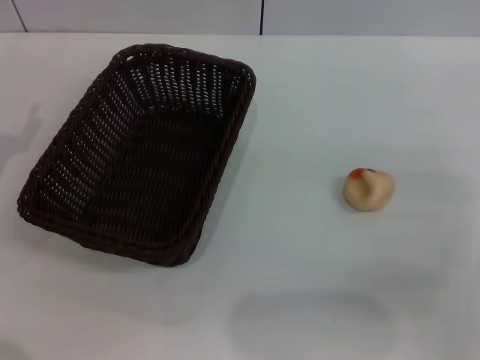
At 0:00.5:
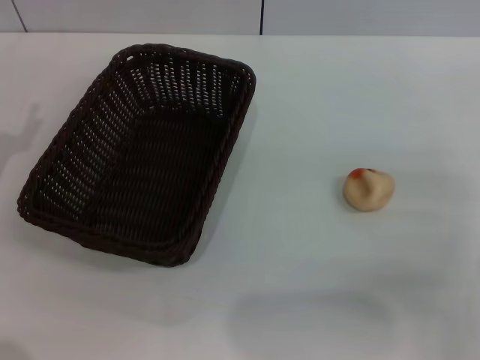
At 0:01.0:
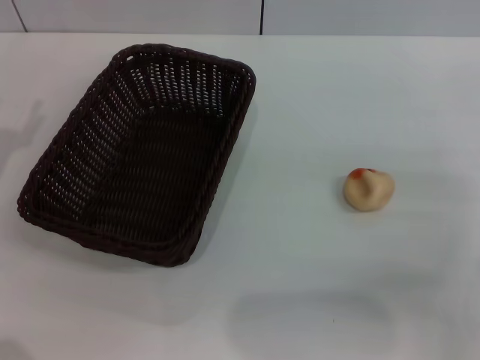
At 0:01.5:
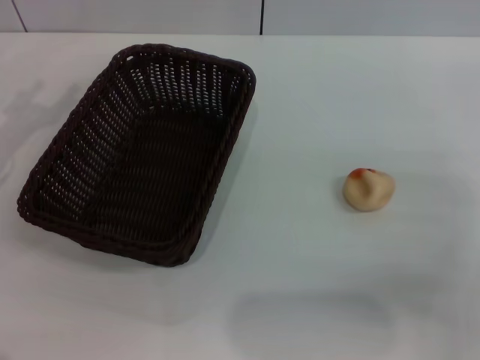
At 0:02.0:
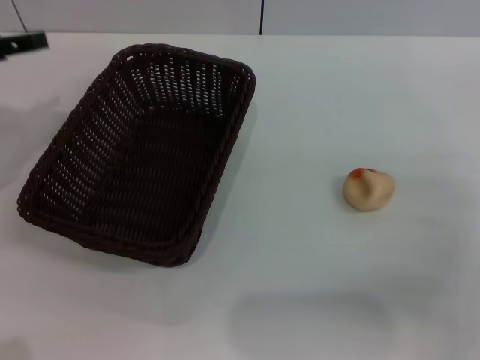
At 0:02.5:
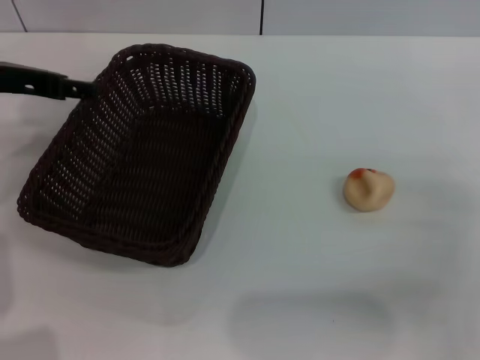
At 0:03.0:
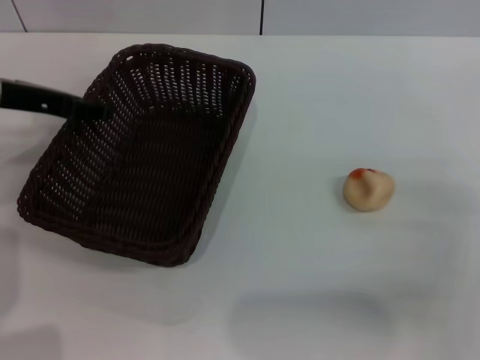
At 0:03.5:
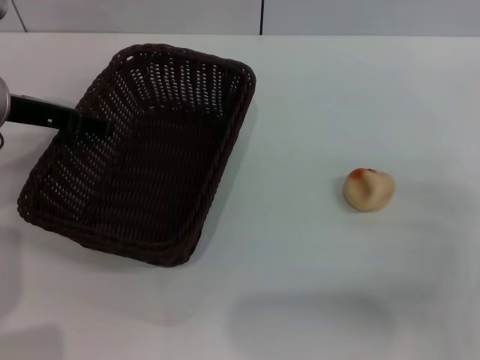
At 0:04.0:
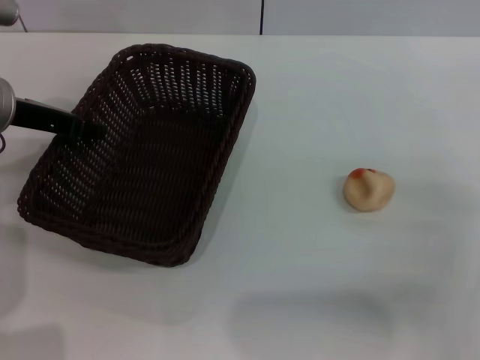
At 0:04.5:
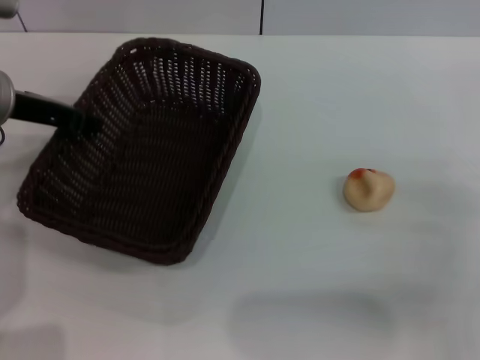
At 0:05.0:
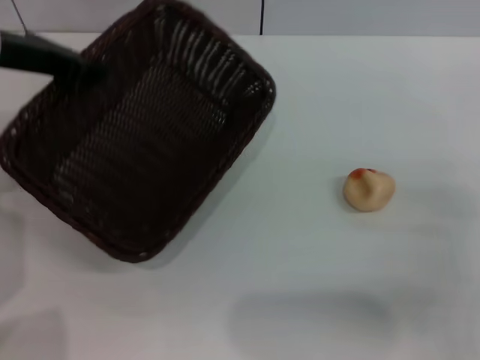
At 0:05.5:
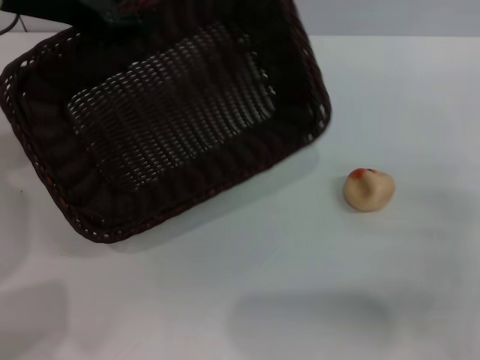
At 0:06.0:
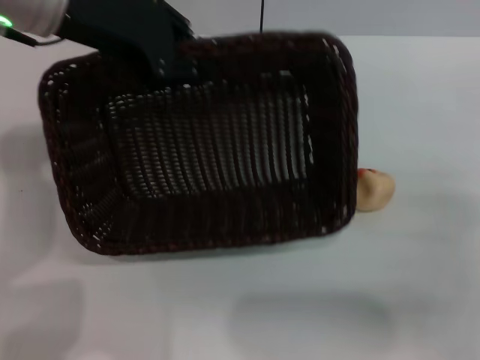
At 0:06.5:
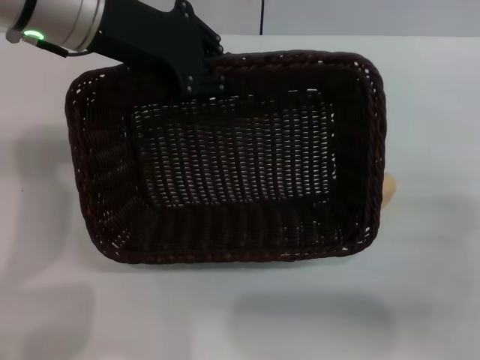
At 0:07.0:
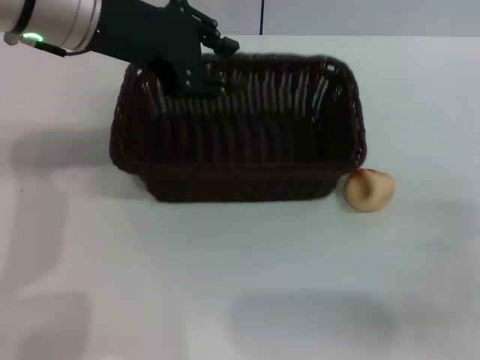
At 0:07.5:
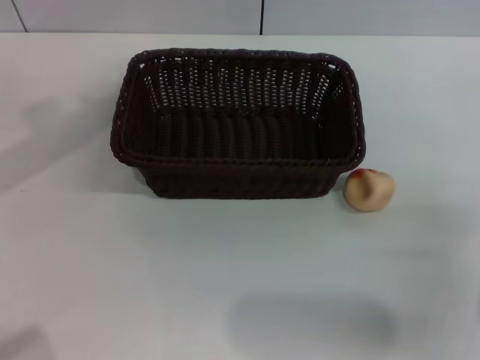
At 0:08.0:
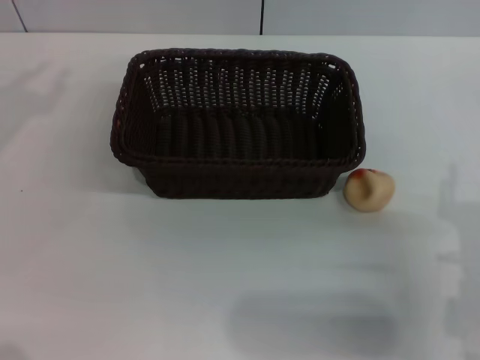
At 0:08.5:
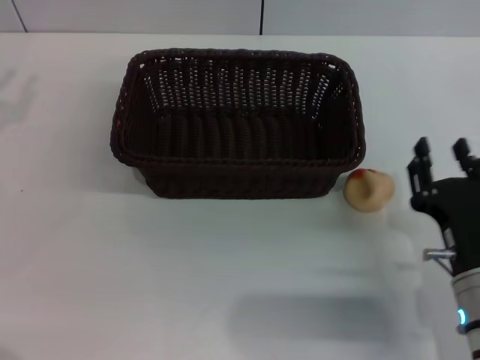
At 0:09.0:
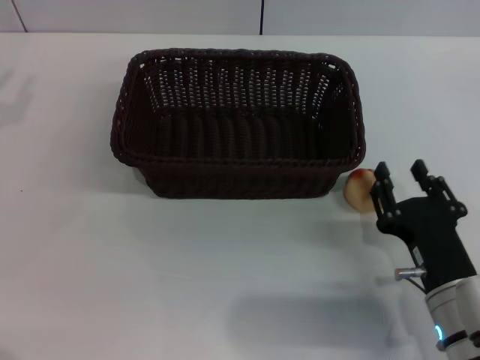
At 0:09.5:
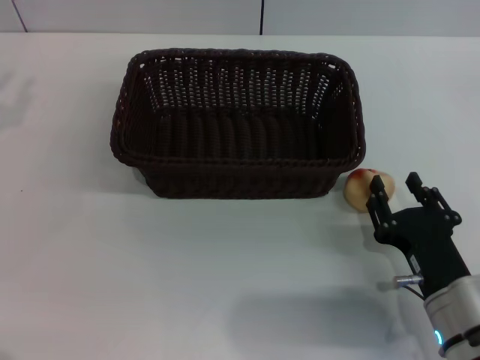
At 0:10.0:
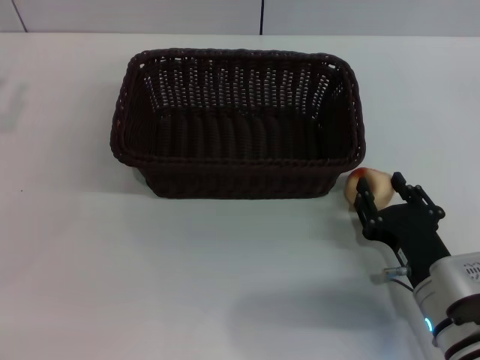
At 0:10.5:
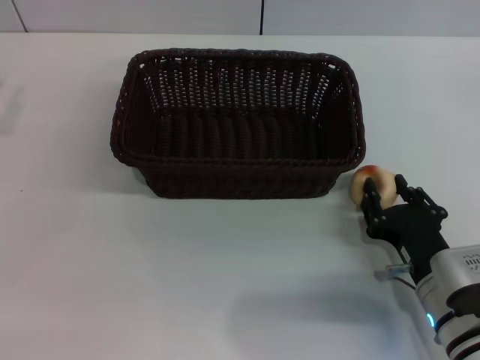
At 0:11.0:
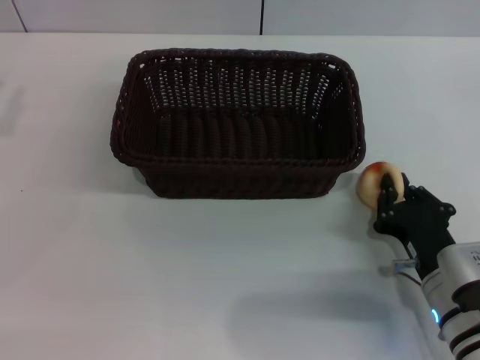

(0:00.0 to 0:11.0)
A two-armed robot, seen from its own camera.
Step, 0:00.0 - 0:07.0: Move the basket to the center of view with the left gripper.
0:00.0 - 0:02.0: The left gripper moves upward and forward, about 15 cm.
0:02.0 - 0:03.5: The left gripper travels to the right by about 5 cm.
0:03.5 - 0:05.5: The left gripper shifts roughly 10 cm upward, and closes up.
0:05.5 - 0:07.5: The left gripper ends up about 5 cm from where it was, and opens.
0:07.5 - 0:09.0: The right gripper shifts about 10 cm to the left. Meanwhile the left gripper moves to the left, downward and backward, about 15 cm.
0:09.0 - 0:11.0: The right gripper closes its fingers.

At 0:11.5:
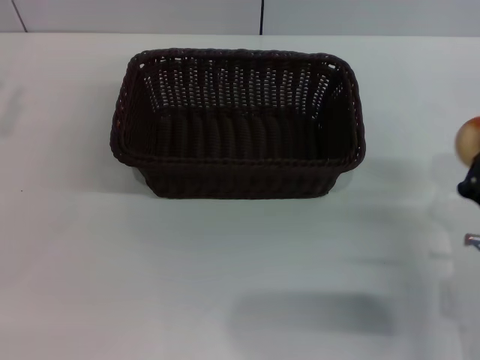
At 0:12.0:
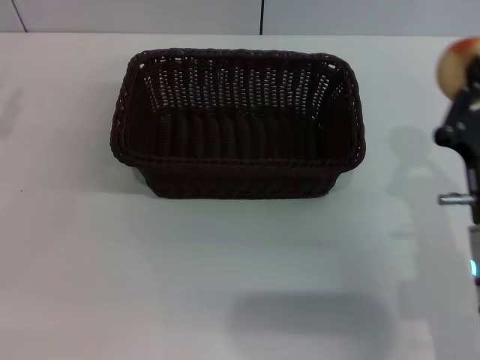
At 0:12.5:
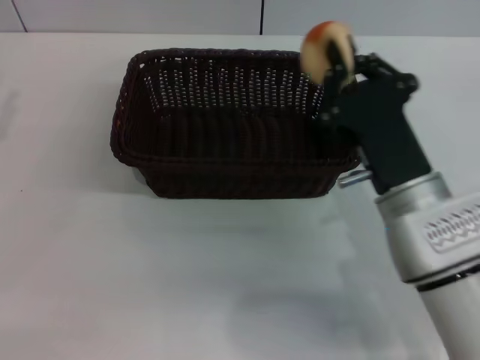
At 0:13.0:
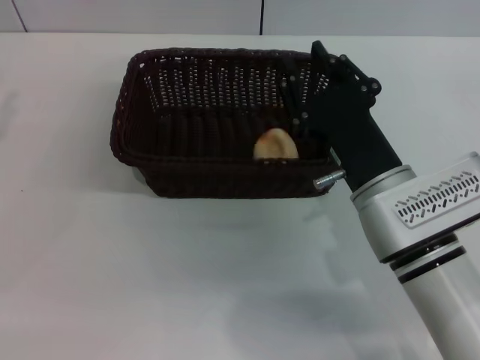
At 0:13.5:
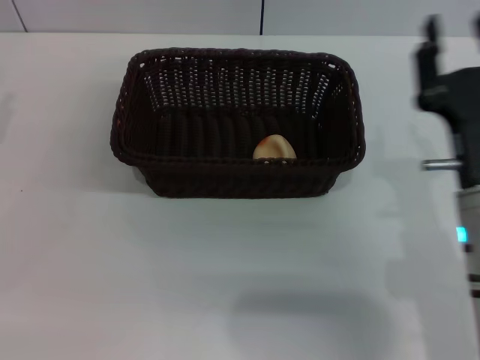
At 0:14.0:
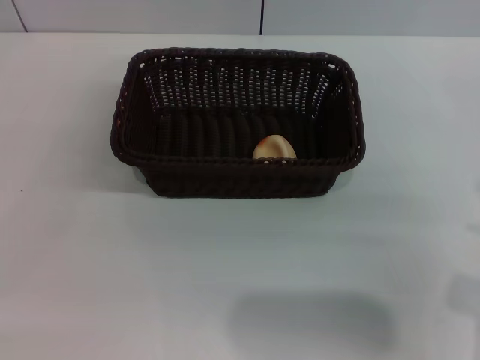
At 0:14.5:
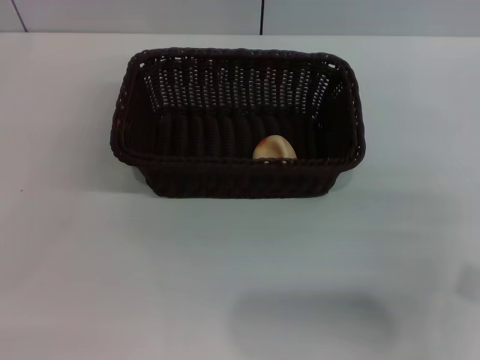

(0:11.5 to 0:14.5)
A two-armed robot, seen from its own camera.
Step, 0:11.5 - 0:13.0: Place the egg yolk pastry into the basket with the right gripper.
0:11.5 - 0:13.0: The right gripper is displaced to the left, forward and upward by approximately 15 cm.
0:13.0 - 0:14.5: The right gripper moves to the right, roughly 15 cm, and opens, while the left gripper shifts roughly 10 cm downward.
